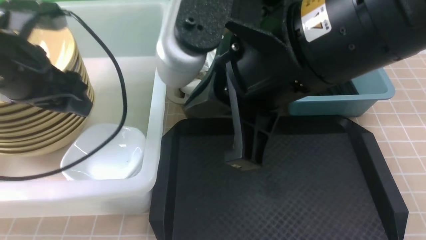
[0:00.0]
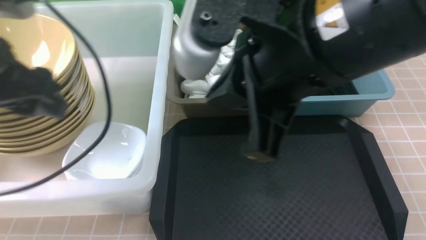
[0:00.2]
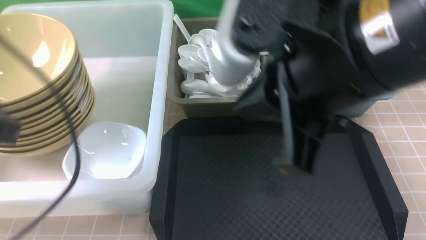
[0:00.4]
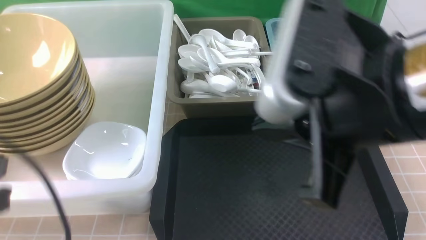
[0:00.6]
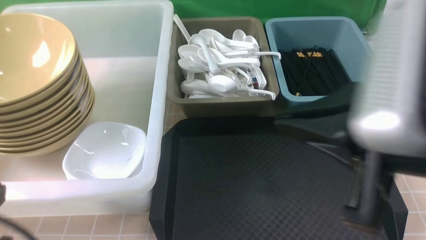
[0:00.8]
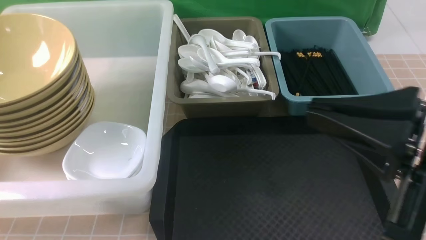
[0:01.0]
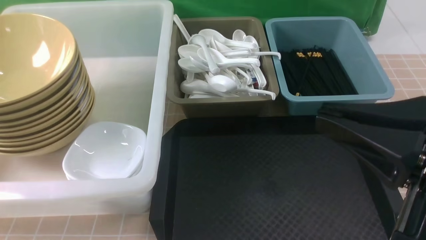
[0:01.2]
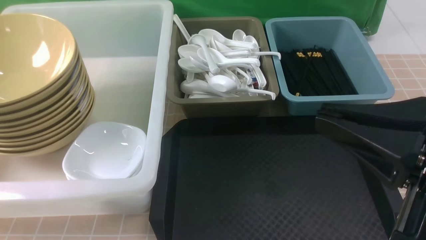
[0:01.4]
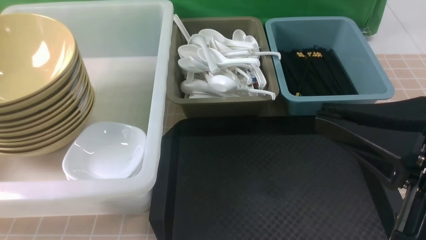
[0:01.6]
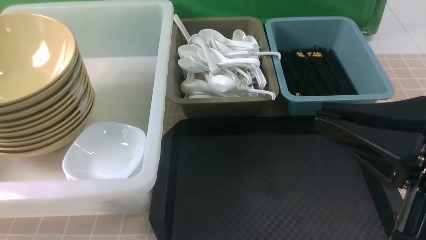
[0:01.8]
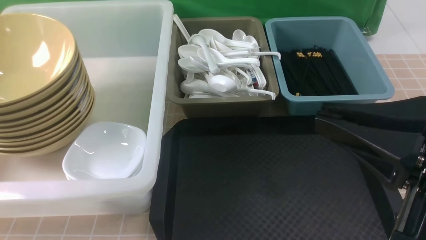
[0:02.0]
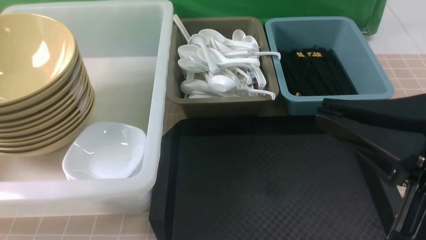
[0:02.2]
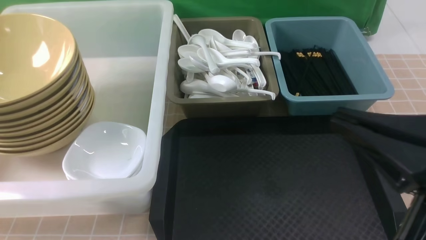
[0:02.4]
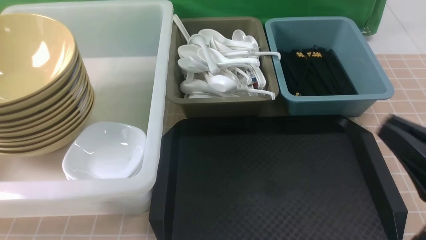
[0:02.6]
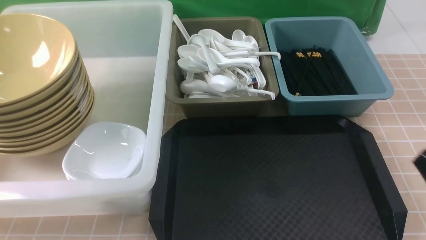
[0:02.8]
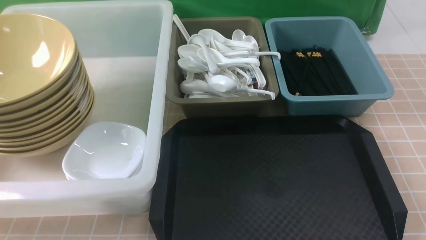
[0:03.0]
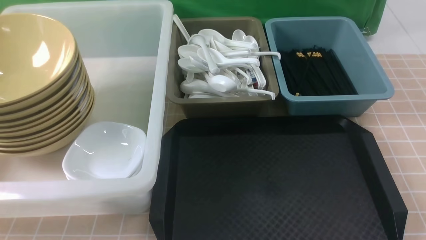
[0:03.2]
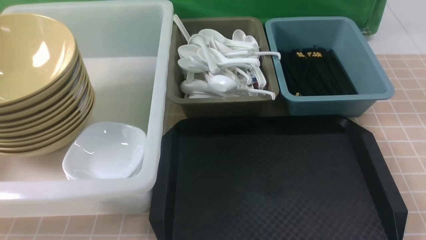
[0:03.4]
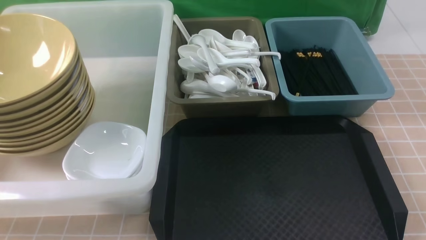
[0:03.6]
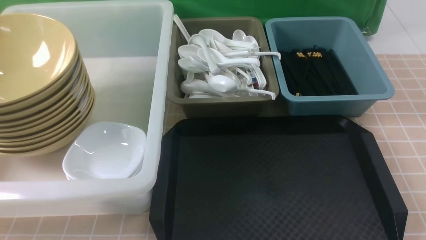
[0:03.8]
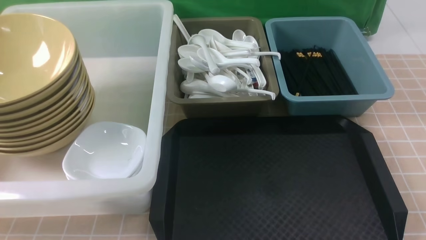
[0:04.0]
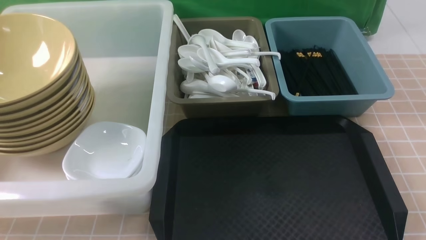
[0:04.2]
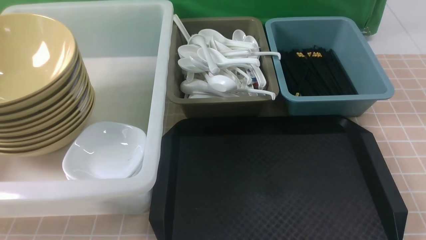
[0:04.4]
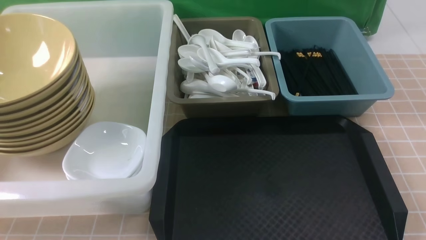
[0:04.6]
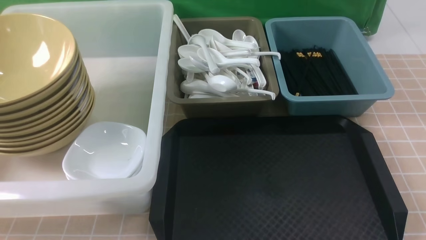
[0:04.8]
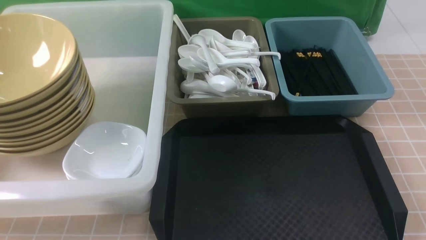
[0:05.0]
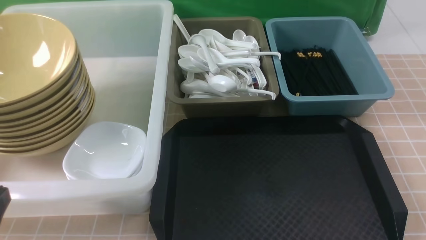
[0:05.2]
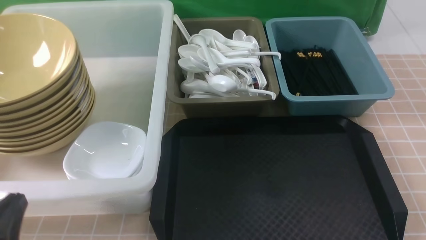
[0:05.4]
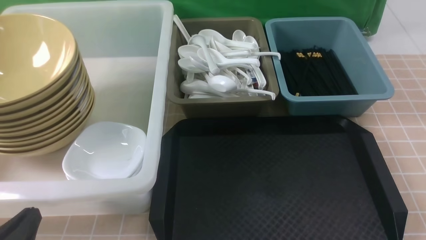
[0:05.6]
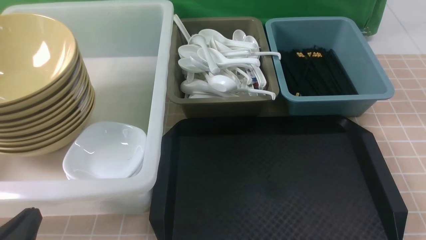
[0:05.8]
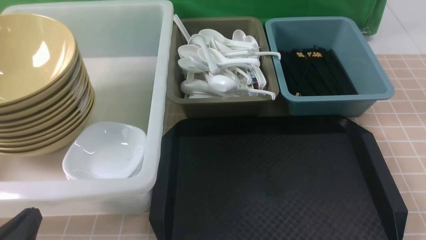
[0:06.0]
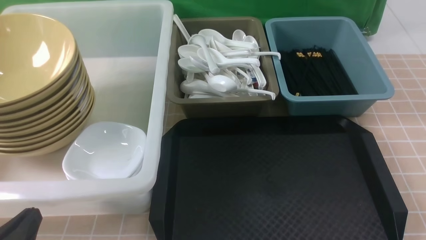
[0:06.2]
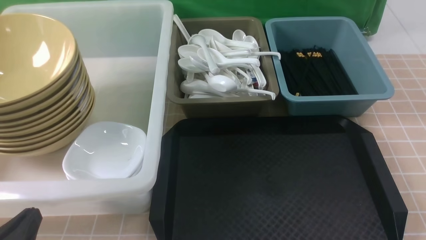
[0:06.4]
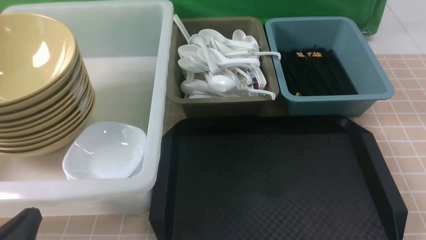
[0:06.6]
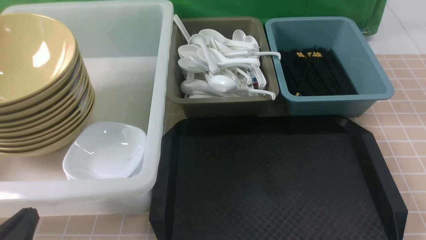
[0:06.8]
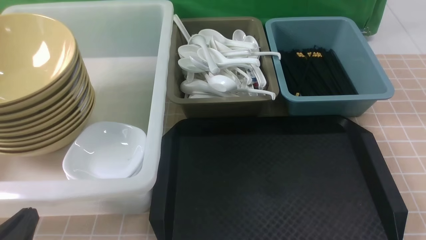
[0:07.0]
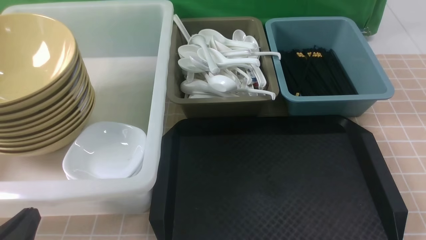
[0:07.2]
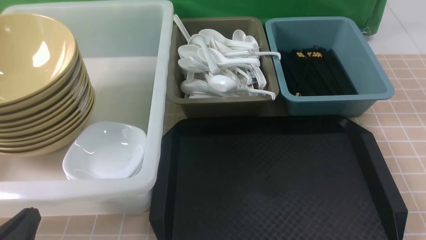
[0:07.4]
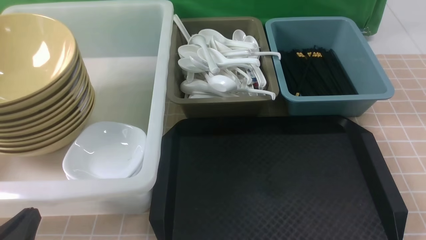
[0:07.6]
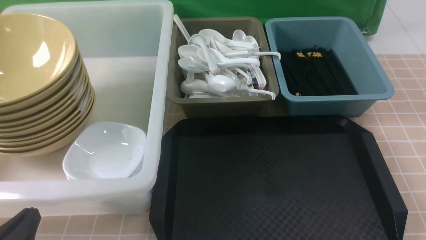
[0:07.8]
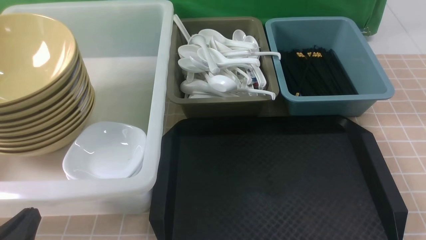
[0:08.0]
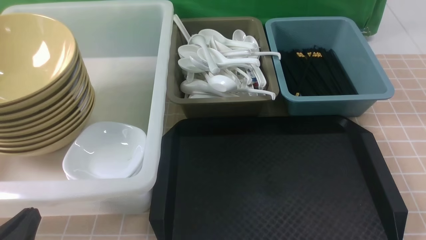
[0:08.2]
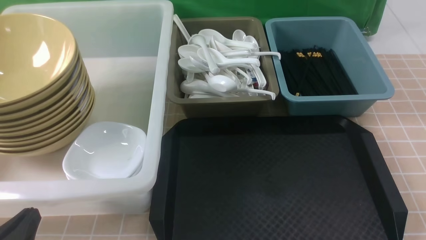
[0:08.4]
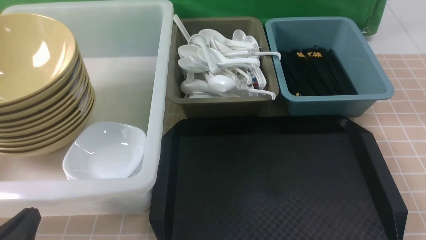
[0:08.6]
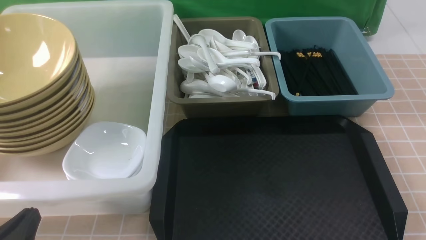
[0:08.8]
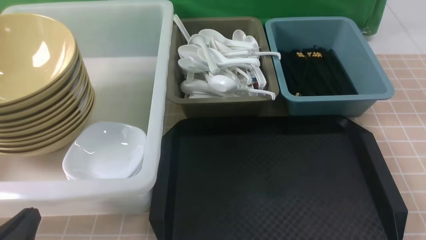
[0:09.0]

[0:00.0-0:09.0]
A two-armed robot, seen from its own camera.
Task of the whole recording: on brown table put chopsticks spoon bowls plates into blue grey white boxes.
0:00.0 to 0:01.6: The left gripper is displaced backward by approximately 25 cm, and closes its fingers, while the right gripper travels to the right, backward and downward by approximately 15 cm.
0:01.6 to 0:03.0: The right gripper is displaced downward and to the right by some 20 cm.
0:04.4 to 0:06.0: The left gripper goes approximately 10 cm downward.
0:06.0 to 0:09.0: Neither gripper changes place.
